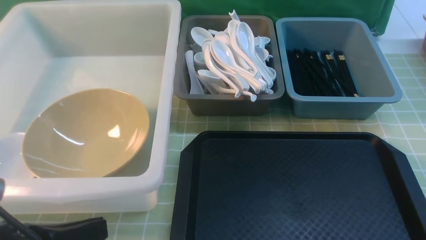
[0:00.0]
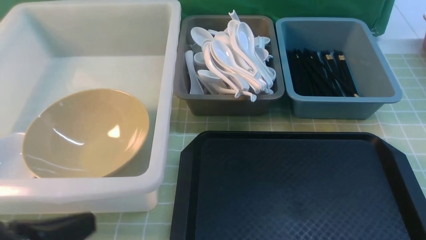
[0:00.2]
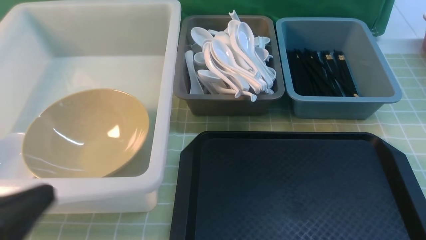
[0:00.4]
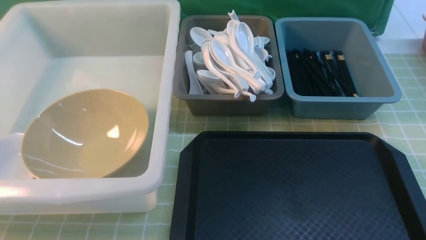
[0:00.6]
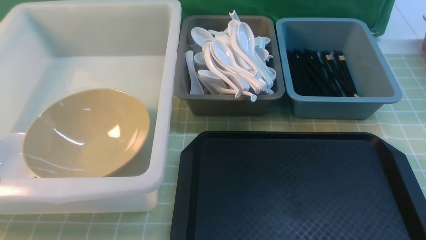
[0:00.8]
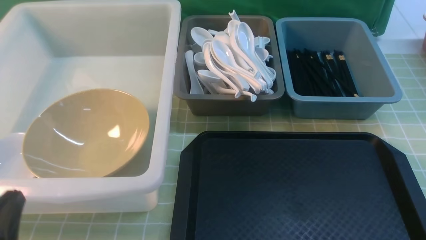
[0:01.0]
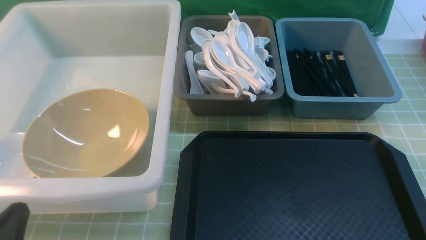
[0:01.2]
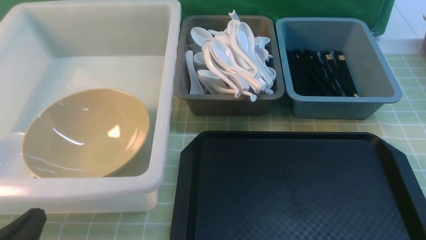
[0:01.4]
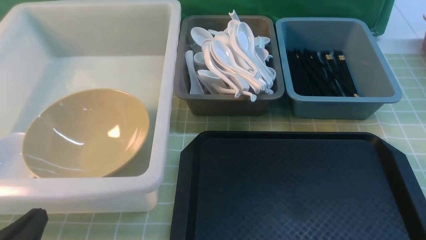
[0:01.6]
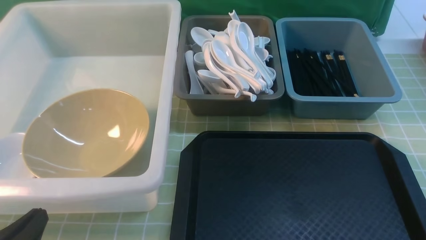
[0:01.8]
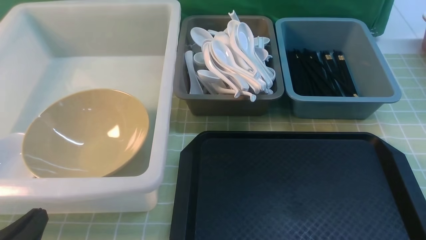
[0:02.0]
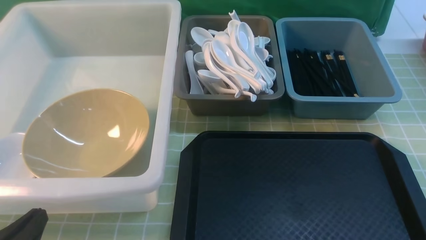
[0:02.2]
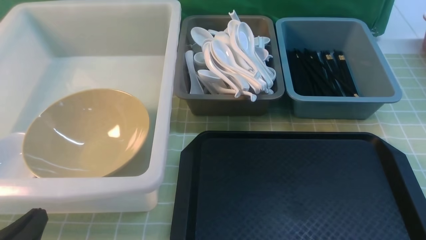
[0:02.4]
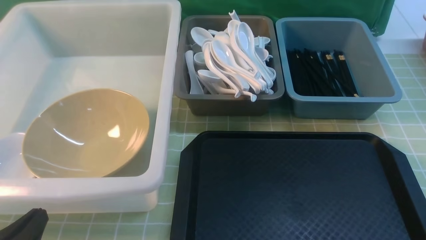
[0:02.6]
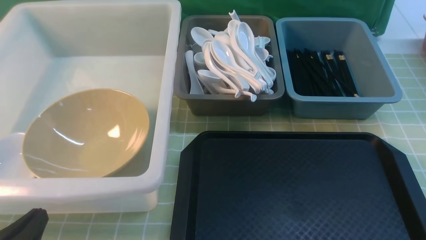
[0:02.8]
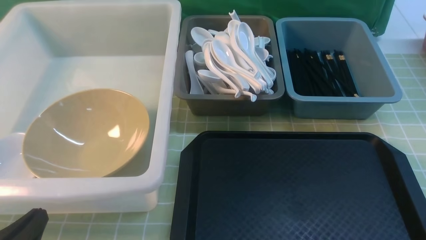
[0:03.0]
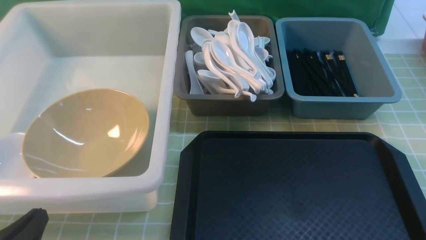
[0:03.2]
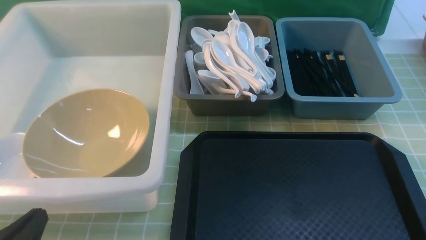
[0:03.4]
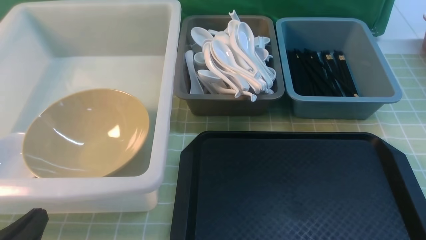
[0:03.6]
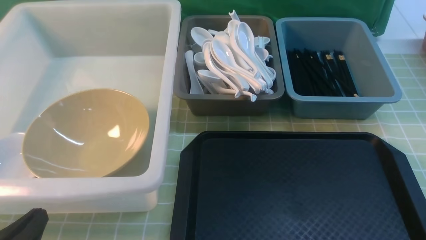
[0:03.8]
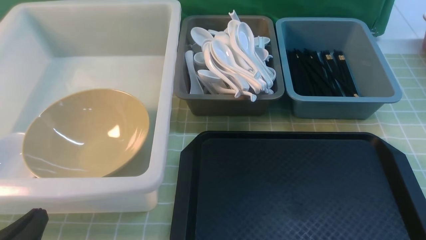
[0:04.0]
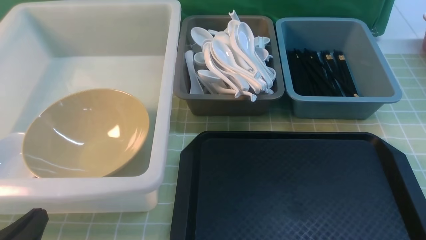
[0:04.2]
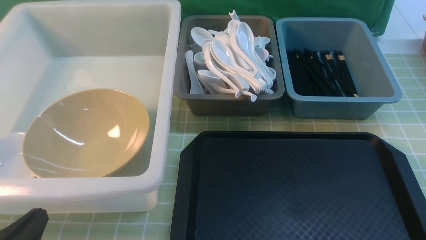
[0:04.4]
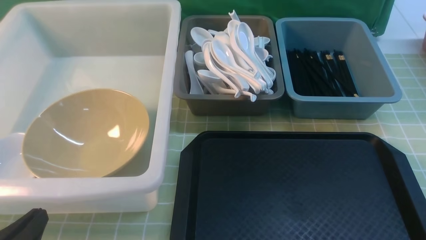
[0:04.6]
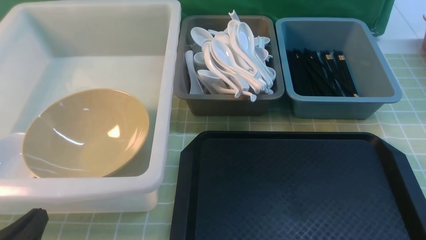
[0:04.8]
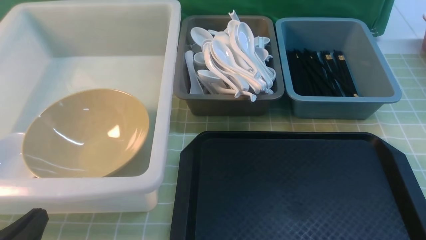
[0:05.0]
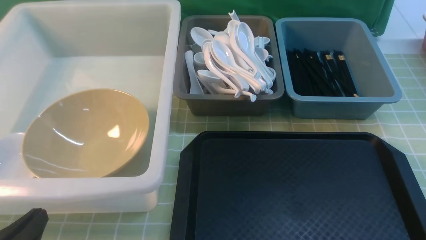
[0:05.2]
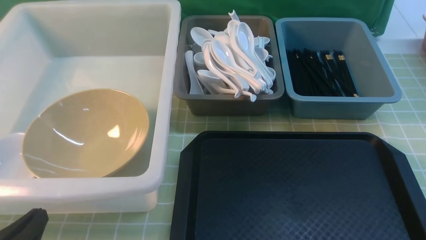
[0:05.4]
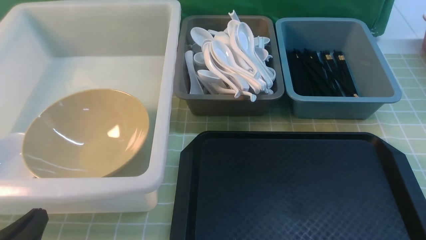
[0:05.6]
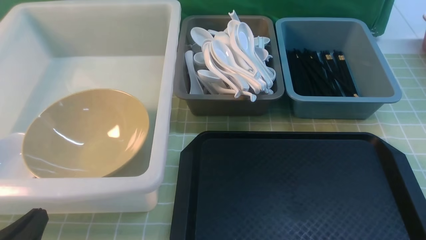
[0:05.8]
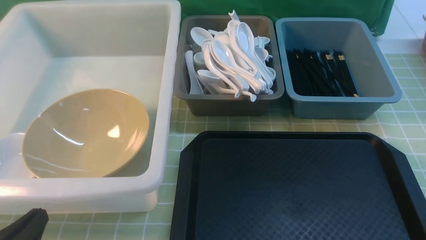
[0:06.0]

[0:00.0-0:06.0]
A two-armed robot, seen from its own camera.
Task of the whole recording: on green table put chopsticks spoon bowls plates into blue grey white boxes.
0:00.0 to 0:01.6: The left gripper goes roughly 10 cm downward.
0:04.4 to 0:06.0: The two grippers keep their place.
